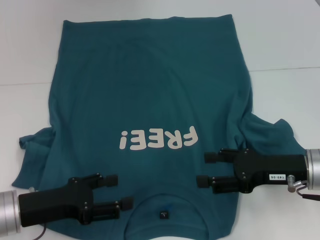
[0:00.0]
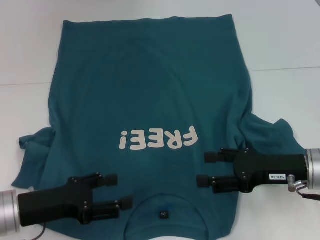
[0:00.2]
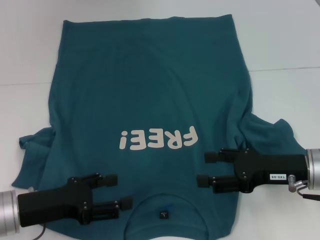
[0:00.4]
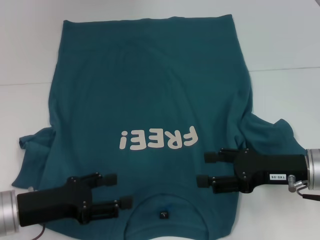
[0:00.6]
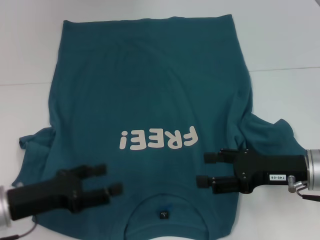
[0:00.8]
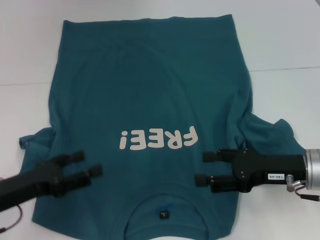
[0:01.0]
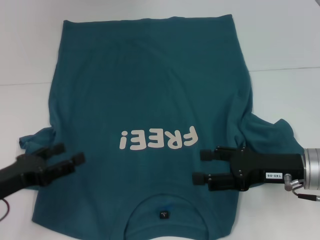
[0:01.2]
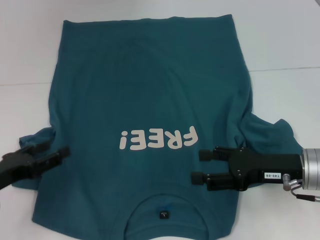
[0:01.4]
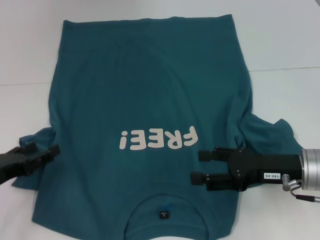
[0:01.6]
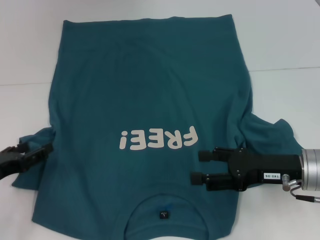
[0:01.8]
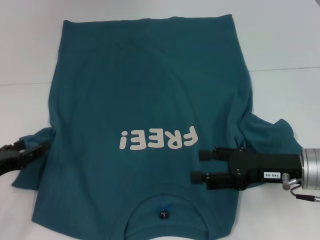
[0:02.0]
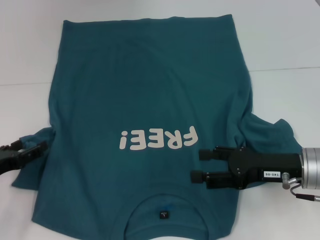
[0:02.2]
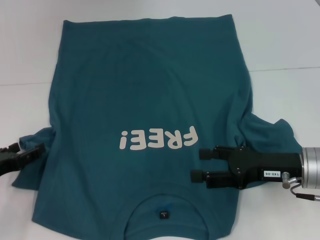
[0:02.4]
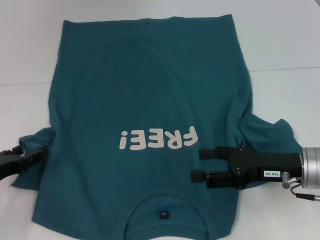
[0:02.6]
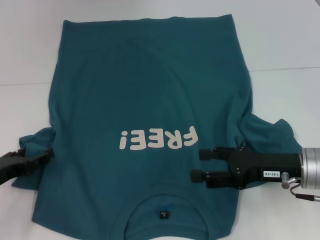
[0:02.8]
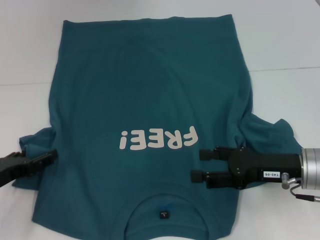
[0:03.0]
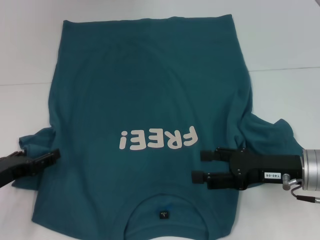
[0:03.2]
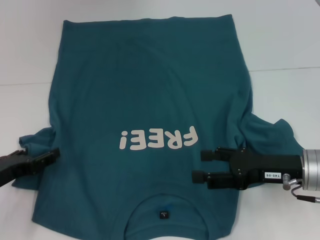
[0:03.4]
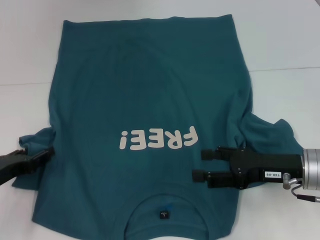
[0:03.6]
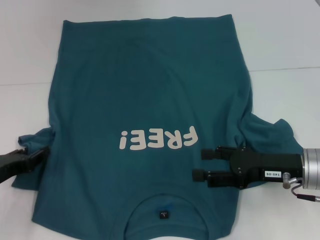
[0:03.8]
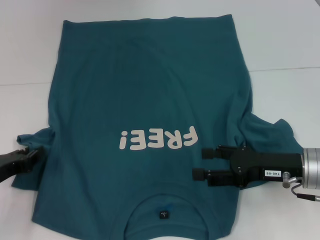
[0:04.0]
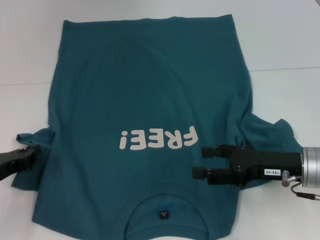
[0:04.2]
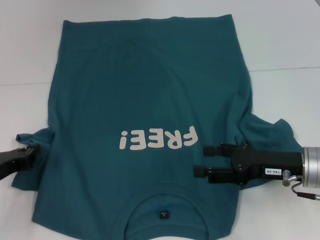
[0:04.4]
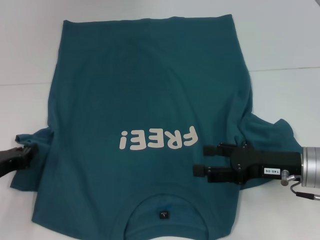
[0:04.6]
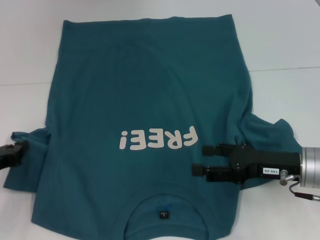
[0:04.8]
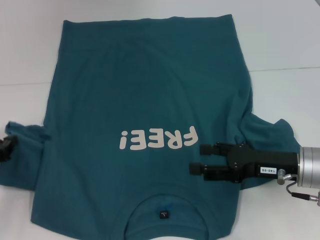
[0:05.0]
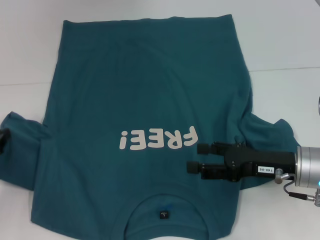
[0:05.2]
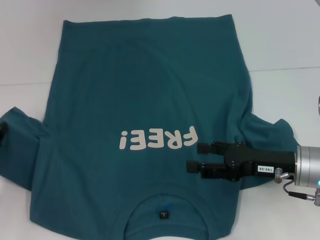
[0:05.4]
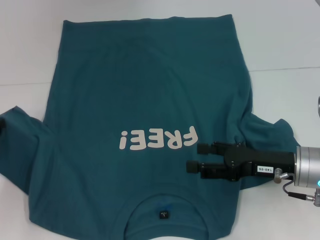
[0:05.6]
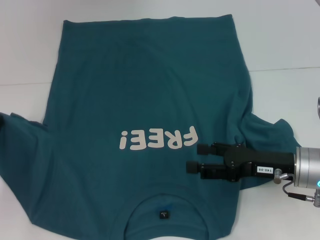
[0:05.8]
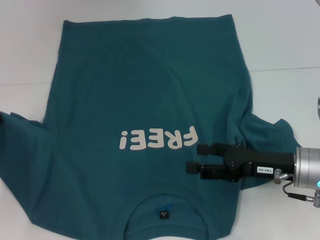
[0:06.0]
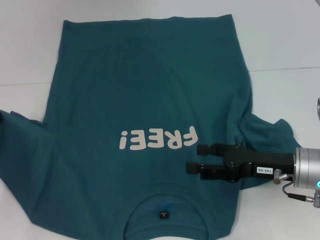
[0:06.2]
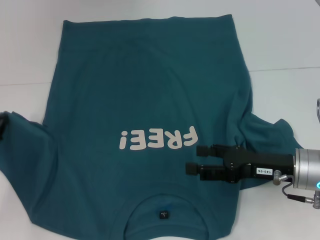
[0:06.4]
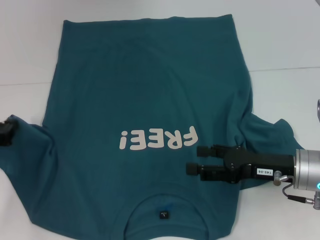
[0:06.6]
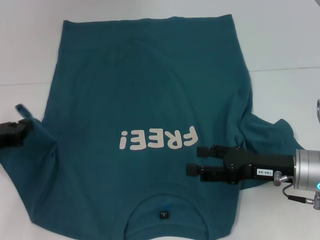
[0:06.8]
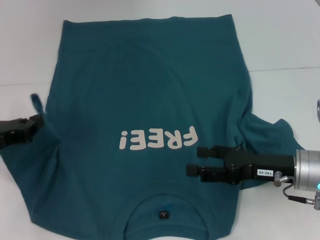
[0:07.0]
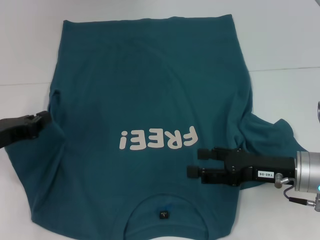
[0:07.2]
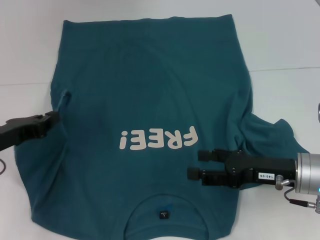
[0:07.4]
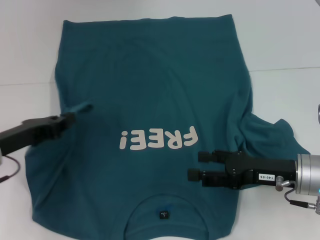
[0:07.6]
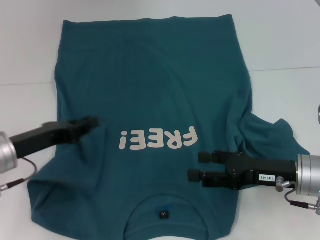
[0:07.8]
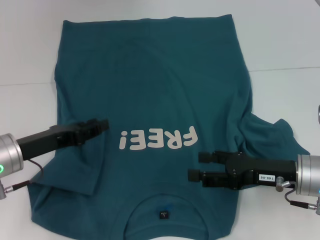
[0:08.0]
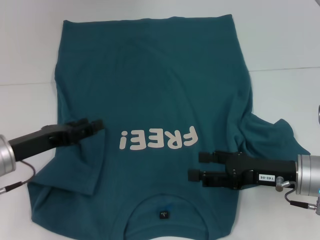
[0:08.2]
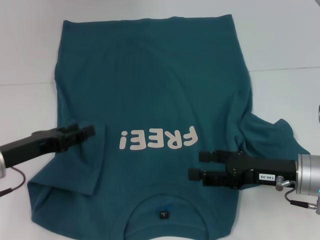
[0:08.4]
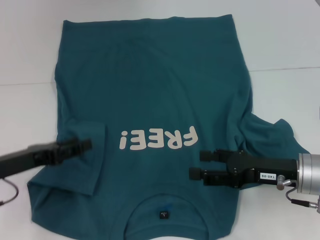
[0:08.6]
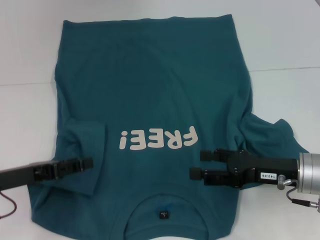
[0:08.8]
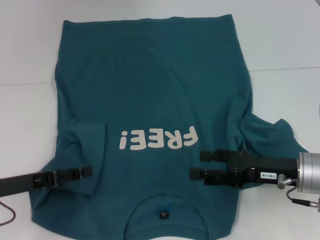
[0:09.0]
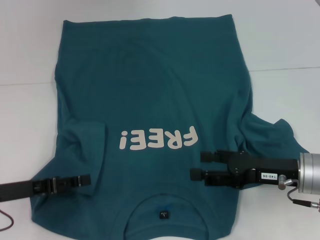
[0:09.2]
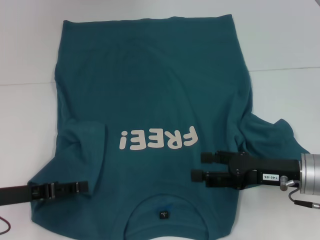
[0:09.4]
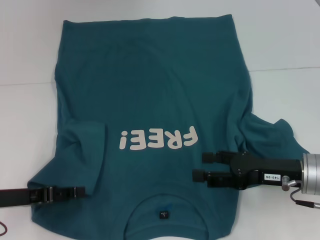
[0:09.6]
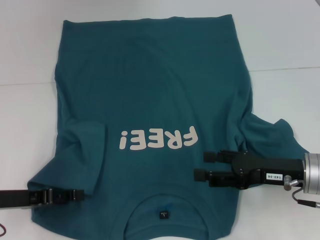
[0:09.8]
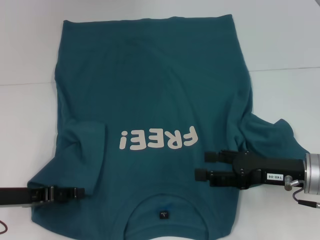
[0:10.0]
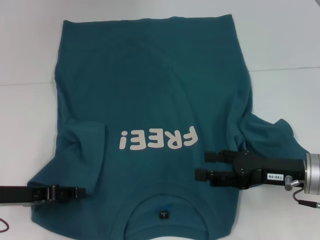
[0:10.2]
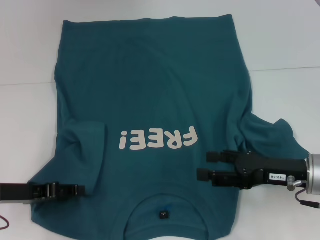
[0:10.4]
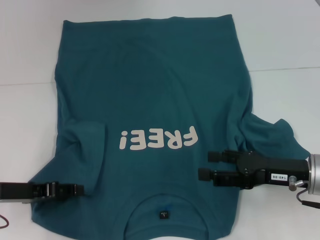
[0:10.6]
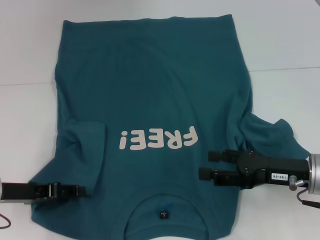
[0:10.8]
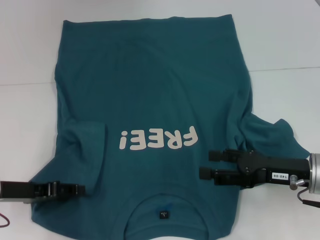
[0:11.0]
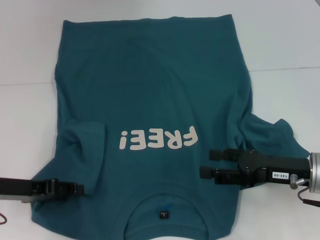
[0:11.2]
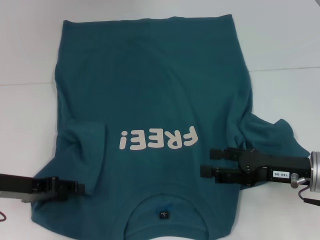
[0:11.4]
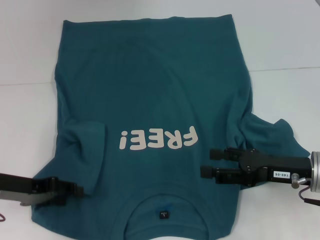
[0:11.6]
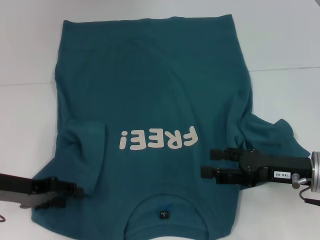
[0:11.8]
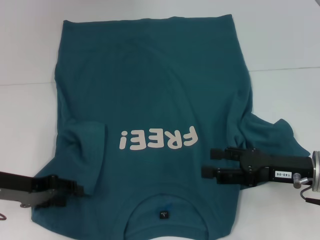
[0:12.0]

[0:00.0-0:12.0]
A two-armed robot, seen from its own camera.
0:00.0 to 0:01.6: The left gripper shifts about 5 cm to the left.
0:01.6 to 0:03.0: There are only small adjustments of the grippers.
0:03.0 to 0:04.4: The left gripper closes its fingers.
0:04.4 to 0:06.0: The left gripper ends up about 5 cm from where it was.
0:06.0 to 0:07.6: The left gripper heads to the right, covering approximately 10 cm.
0:07.6 to 0:09.0: The left gripper opens.
0:09.0 to 0:10.4: There are only small adjustments of the grippers.
0:10.4 to 0:12.0: The grippers make only small movements.

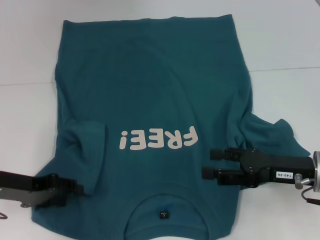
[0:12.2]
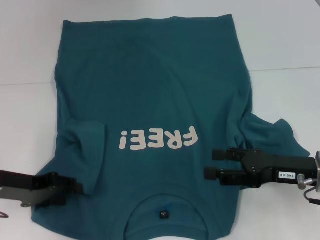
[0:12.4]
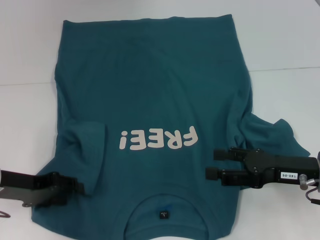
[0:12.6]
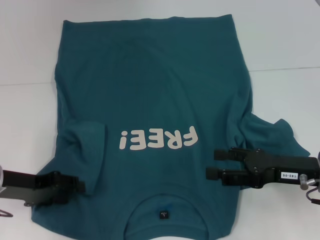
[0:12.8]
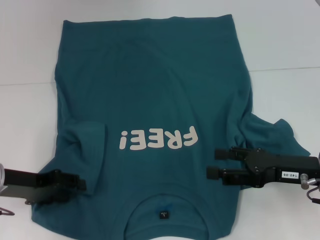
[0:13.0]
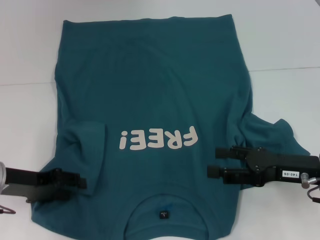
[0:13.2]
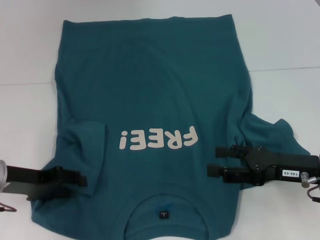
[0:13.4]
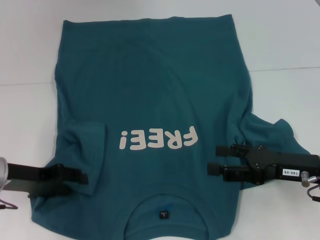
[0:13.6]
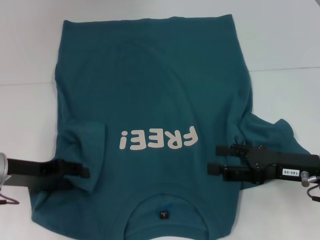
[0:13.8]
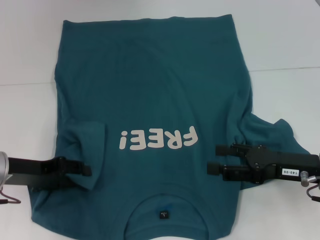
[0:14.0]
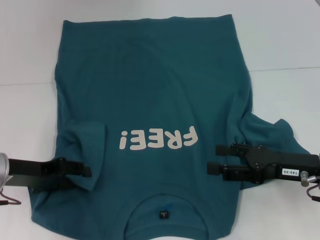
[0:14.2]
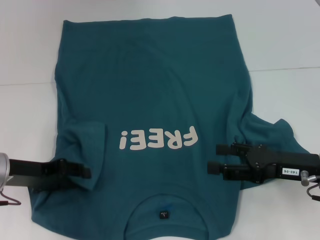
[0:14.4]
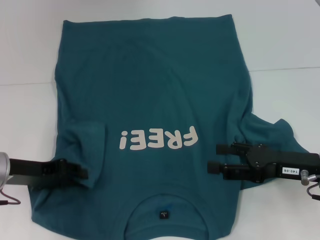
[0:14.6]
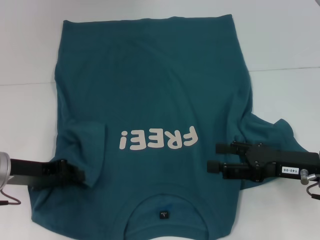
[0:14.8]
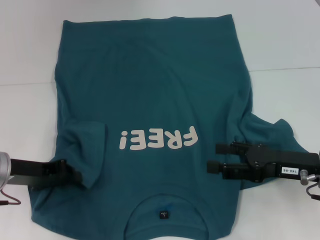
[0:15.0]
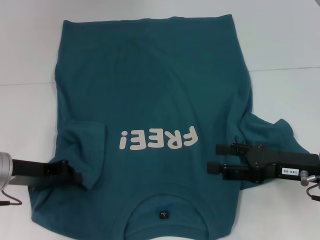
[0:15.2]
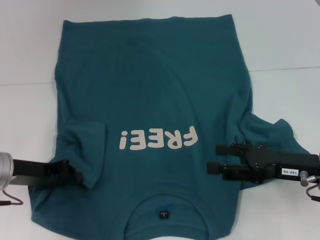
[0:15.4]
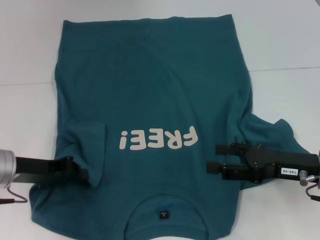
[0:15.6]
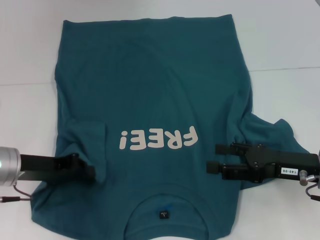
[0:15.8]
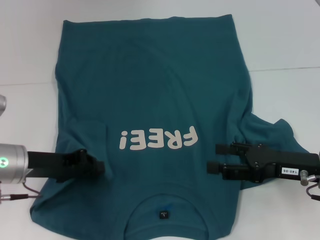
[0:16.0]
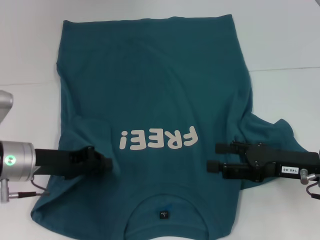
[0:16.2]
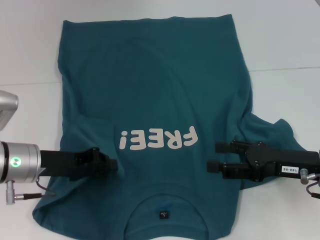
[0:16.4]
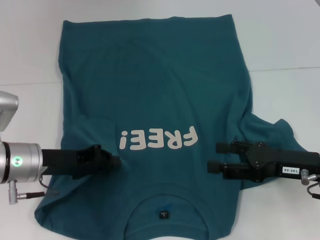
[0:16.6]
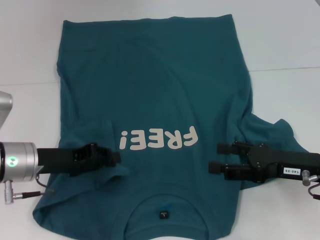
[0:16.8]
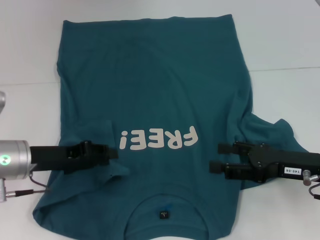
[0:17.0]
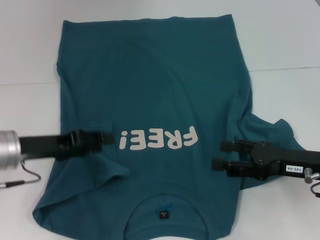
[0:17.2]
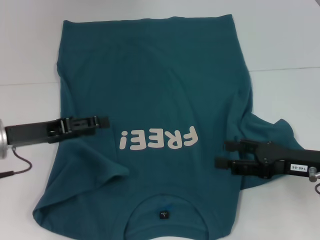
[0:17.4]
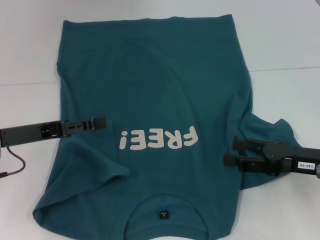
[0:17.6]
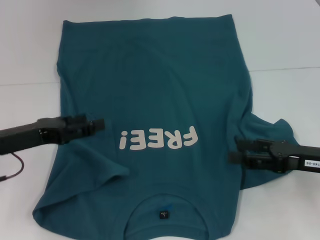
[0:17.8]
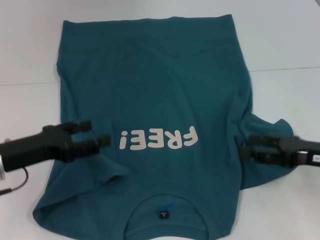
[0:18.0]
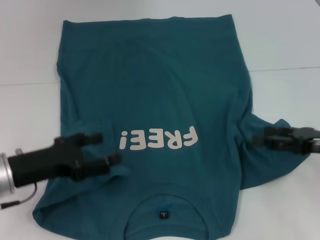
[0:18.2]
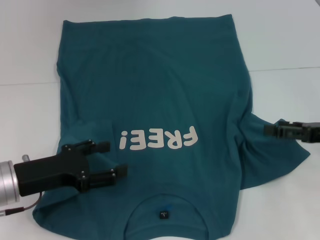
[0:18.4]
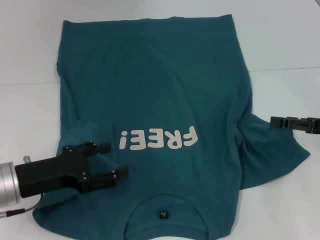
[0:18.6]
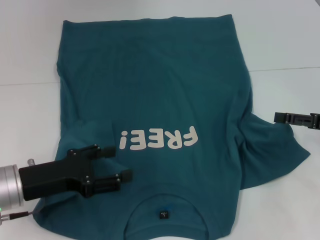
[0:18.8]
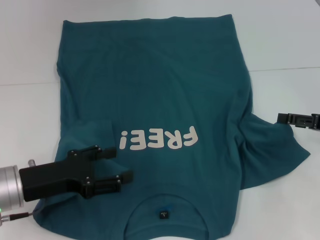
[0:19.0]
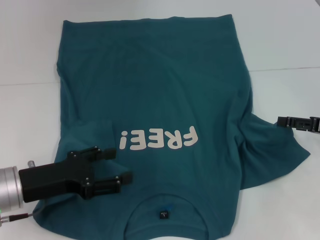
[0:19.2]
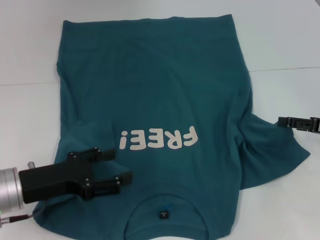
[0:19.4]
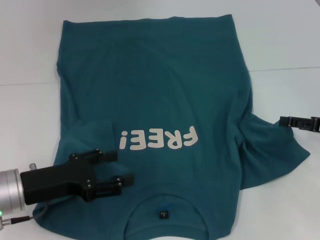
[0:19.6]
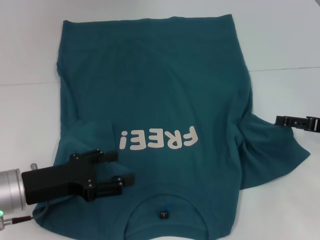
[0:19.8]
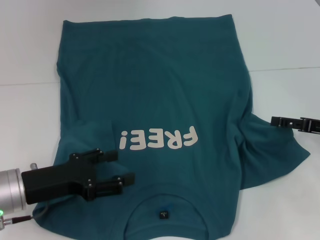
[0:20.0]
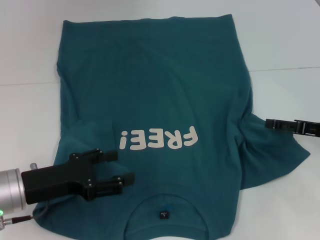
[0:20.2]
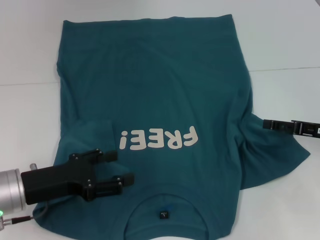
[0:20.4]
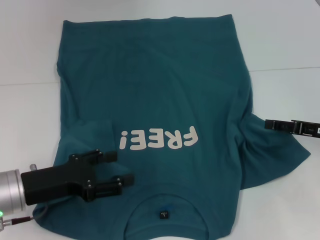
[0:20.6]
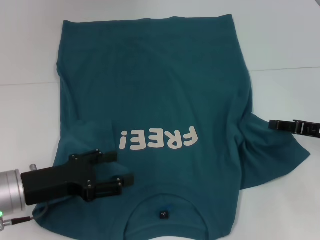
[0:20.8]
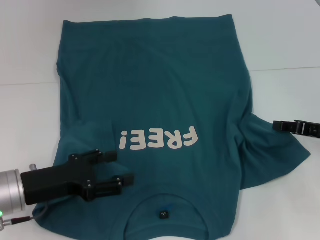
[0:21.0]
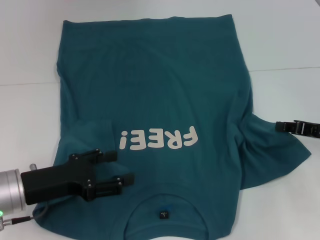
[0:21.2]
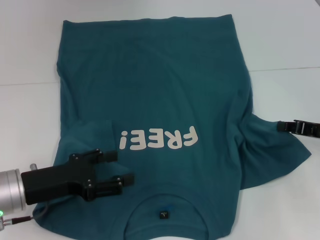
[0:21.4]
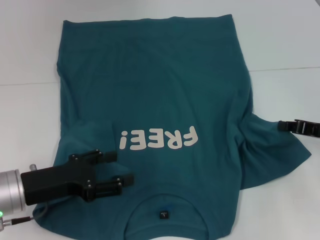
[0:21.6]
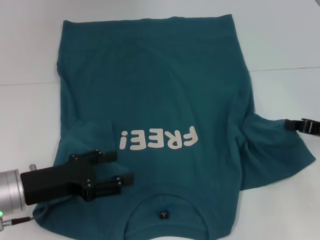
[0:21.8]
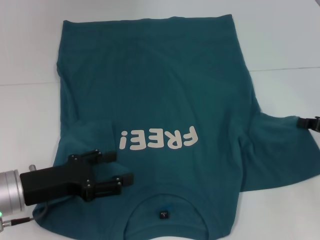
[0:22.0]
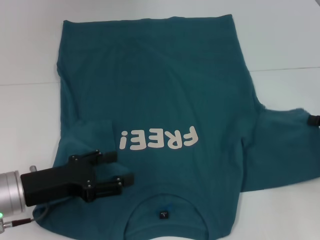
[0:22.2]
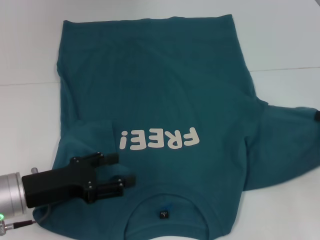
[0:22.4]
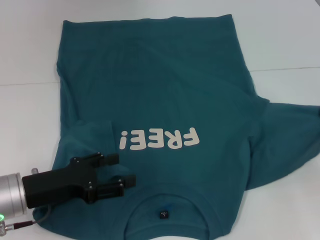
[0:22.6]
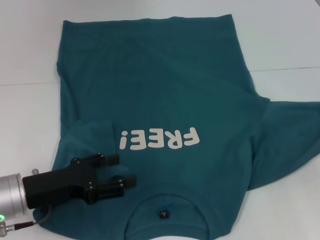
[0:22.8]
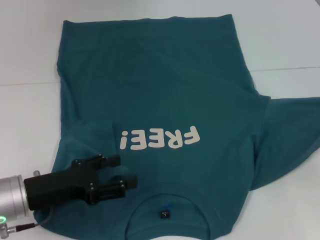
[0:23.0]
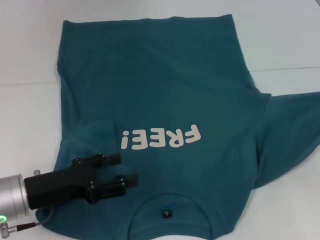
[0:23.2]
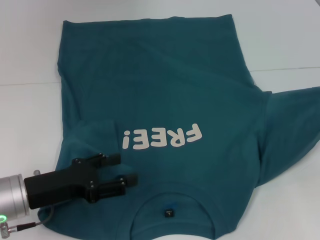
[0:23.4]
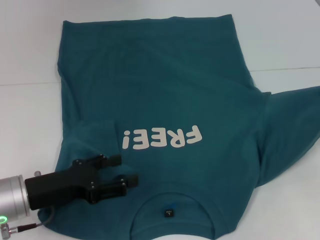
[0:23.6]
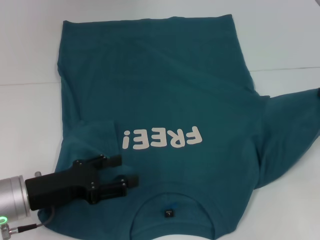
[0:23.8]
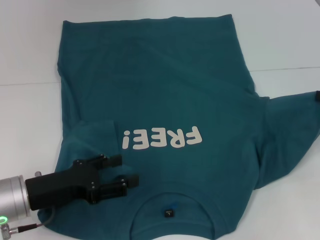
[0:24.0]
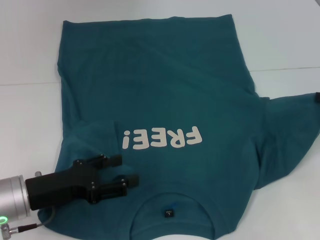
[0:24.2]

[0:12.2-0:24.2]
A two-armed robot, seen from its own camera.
Step, 0:12.2 to 0:18.0: Fold the bottom left sleeve with your left hand.
0:12.2 to 0:13.8: The grippers make only small movements.
0:13.8 to 0:15.2: The left gripper closes its fingers.
0:15.2 to 0:16.6: The grippers move only a little.
0:16.6 to 0:18.2: The left gripper opens up, while the right gripper heads to the right, covering about 5 cm.
0:19.8 to 0:21.2: The right gripper closes its fingers.
0:21.2 to 0:22.6: The right gripper is displaced to the right by roughly 5 cm, and closes.
0:22.6 to 0:24.2: There are only small adjustments of the grippers.
